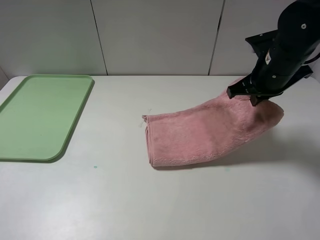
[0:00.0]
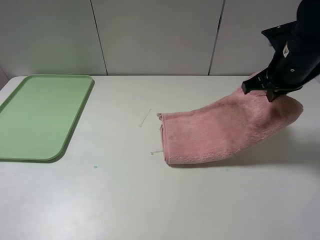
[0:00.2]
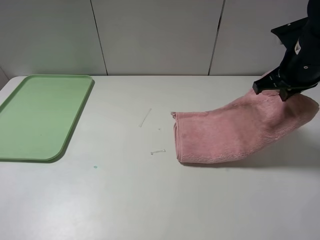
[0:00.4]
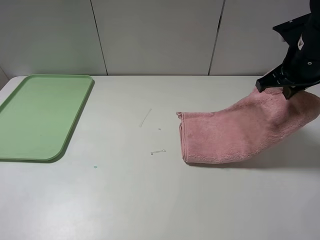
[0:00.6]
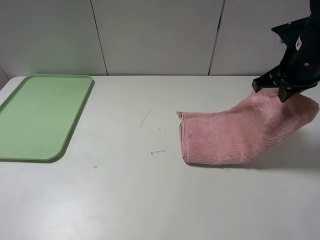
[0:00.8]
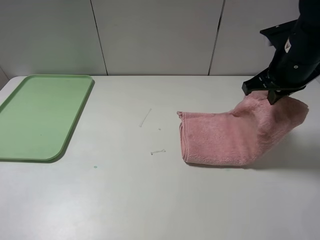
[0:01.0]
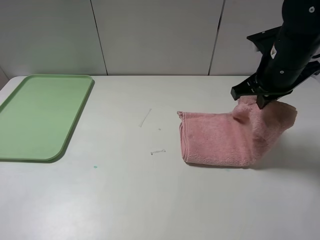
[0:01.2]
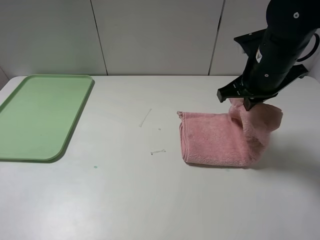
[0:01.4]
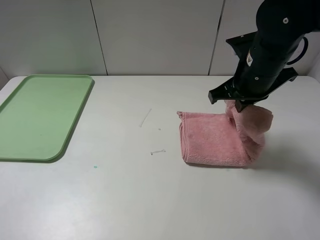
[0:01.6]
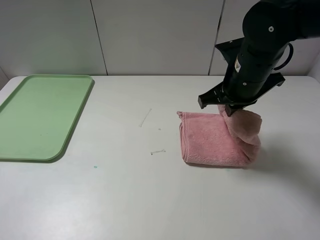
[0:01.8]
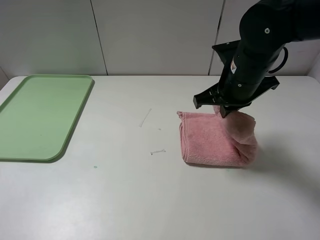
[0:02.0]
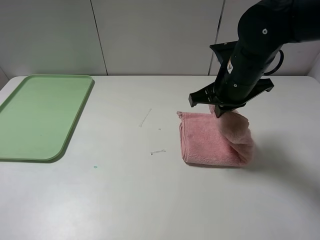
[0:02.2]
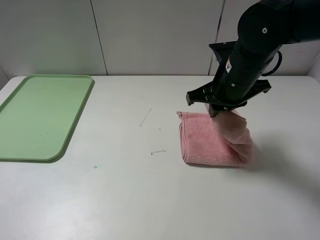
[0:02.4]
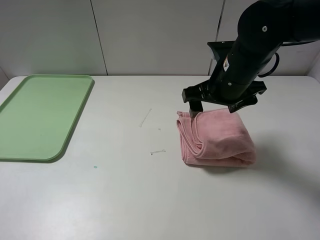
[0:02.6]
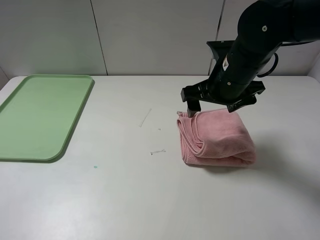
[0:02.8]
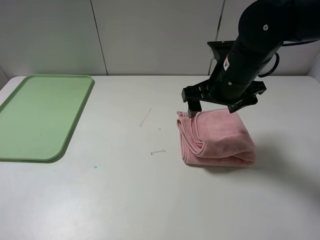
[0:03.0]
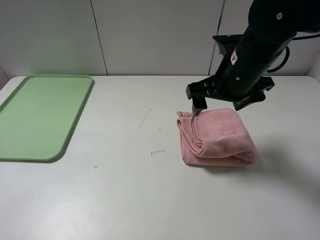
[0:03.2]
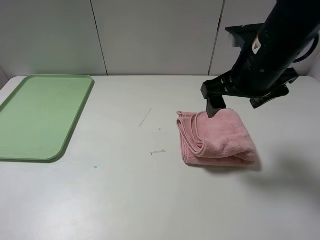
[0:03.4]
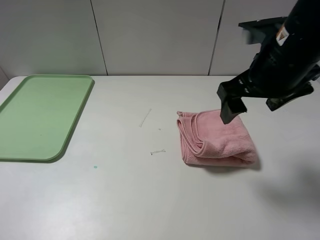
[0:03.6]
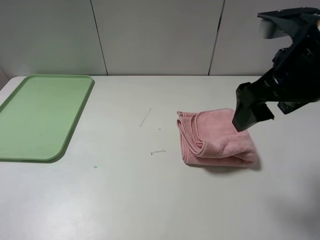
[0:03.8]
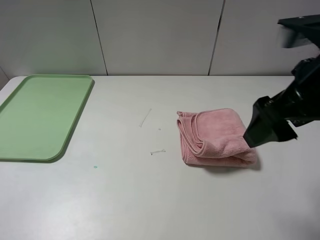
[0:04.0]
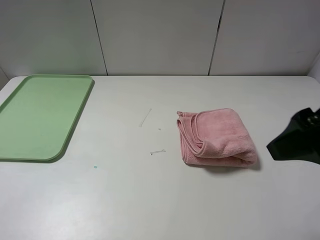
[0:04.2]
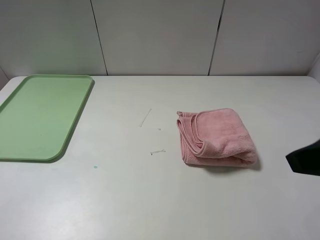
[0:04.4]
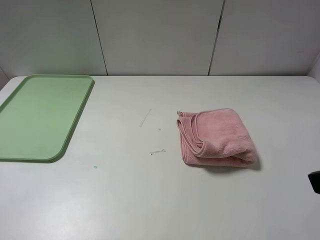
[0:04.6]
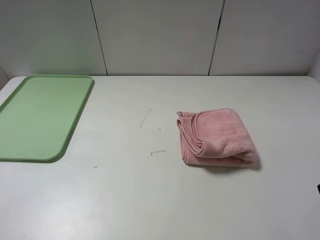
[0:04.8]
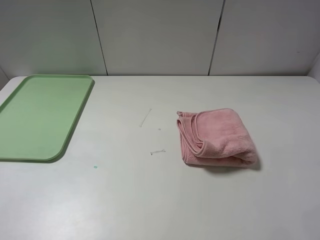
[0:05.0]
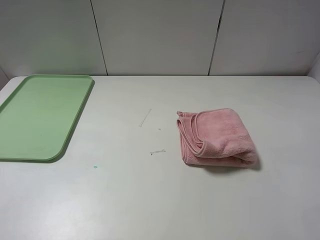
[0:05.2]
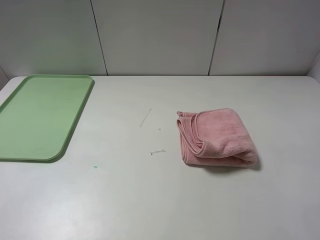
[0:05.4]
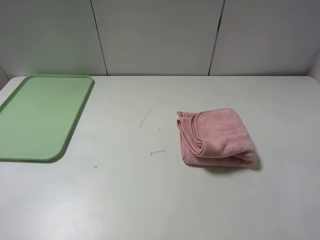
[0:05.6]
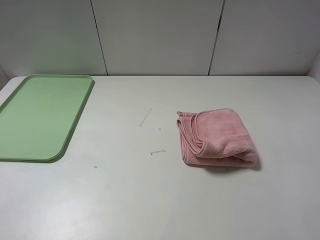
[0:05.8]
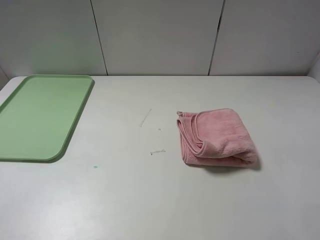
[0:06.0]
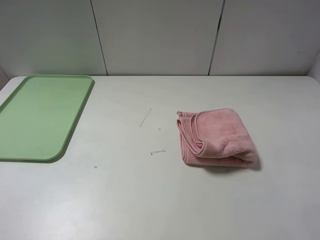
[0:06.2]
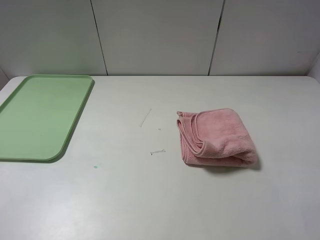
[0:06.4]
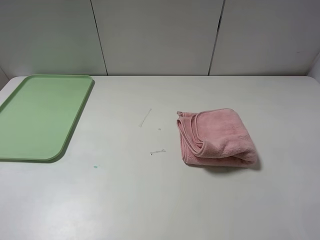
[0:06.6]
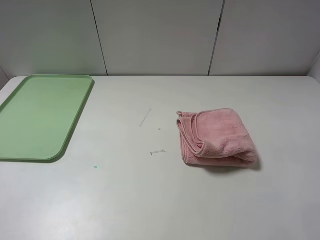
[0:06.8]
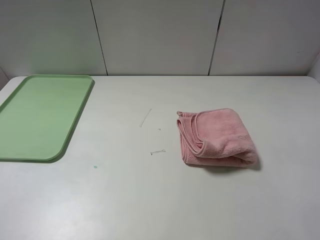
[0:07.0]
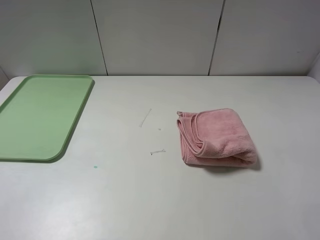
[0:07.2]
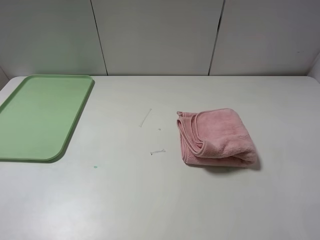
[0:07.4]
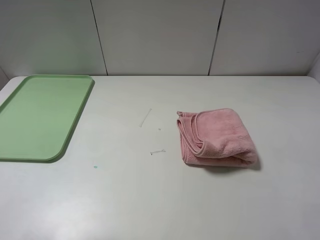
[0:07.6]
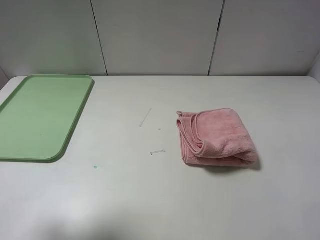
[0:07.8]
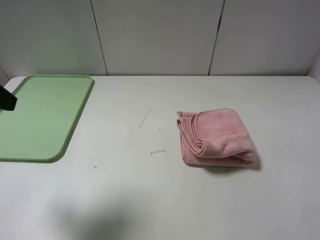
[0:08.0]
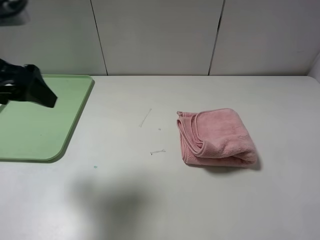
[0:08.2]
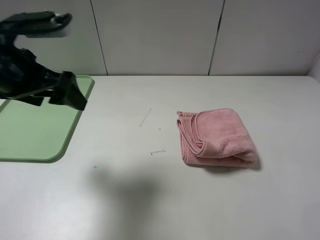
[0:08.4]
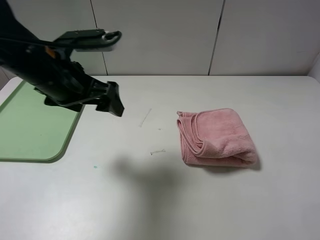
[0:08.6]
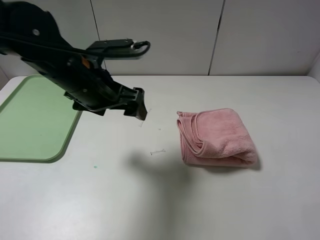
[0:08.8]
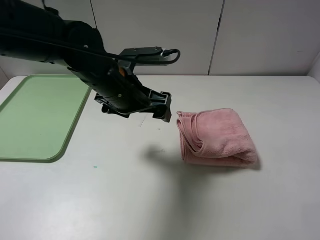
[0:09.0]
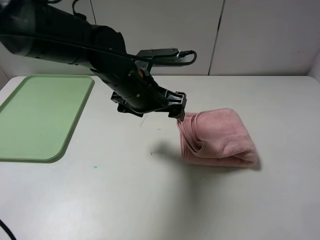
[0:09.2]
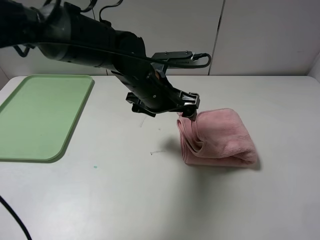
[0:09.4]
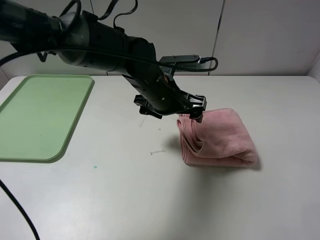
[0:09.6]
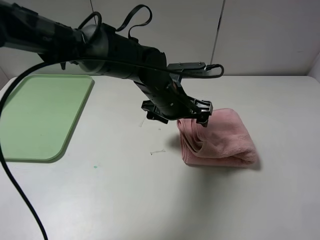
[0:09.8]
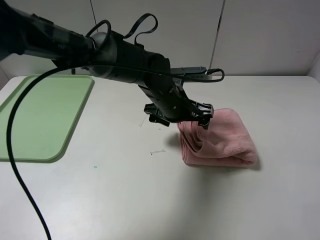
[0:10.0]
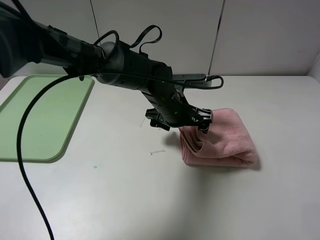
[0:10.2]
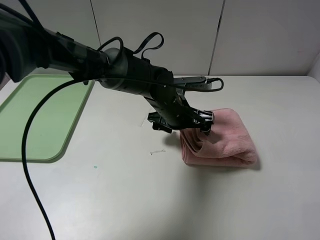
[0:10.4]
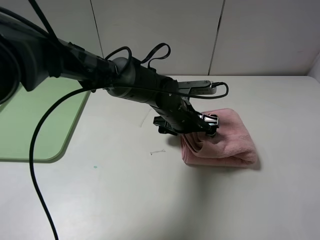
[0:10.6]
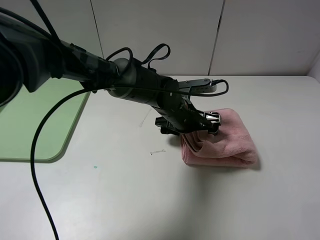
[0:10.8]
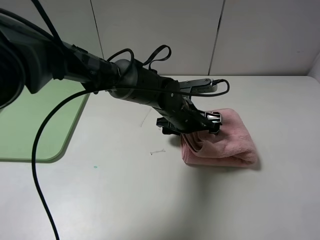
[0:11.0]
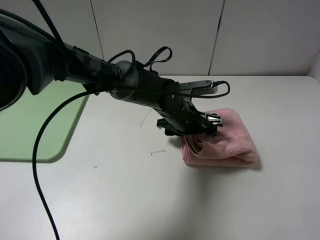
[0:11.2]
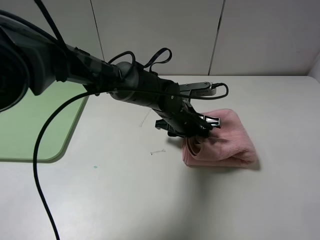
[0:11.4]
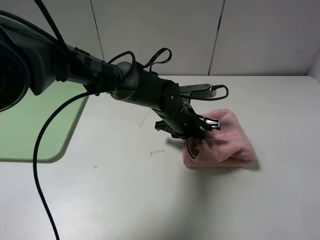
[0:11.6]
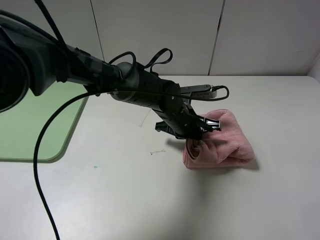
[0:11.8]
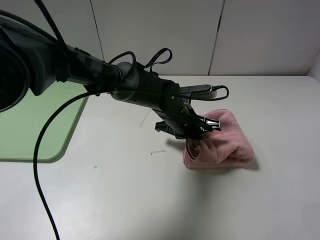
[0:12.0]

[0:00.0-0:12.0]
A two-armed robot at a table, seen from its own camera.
Step, 0:00.0 to 0:02.8: Fold the pink towel from right to left with right gripper.
0:00.0 to 0:01.6: The right gripper moves to the left, roughly 5 cm.
0:01.6 to 0:03.0: The right gripper opens its fingers.
0:03.0 to 0:04.4: The right gripper shifts about 25 cm backward, to the right and upward.
0:04.4 to 0:06.0: The right gripper shifts about 10 cm backward and to the right.
0:07.6 to 0:09.0: The left gripper heads to the right, forward and downward, covering about 35 cm.
0:09.0 to 0:10.4: The left gripper heads to the right and downward, covering about 15 cm.
0:10.4 to 0:12.0: The left gripper closes its fingers.

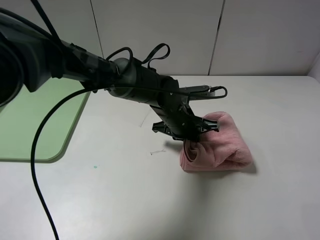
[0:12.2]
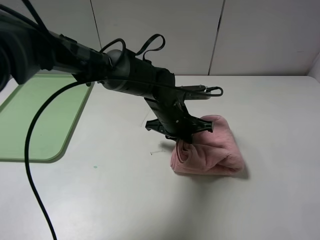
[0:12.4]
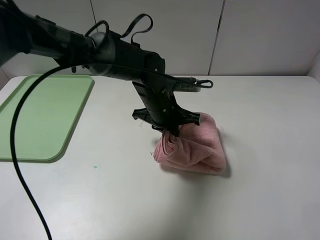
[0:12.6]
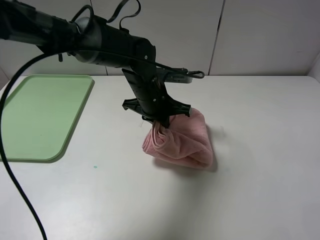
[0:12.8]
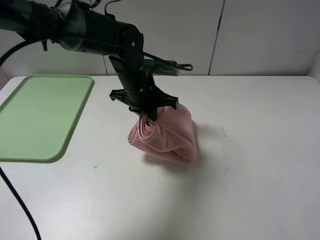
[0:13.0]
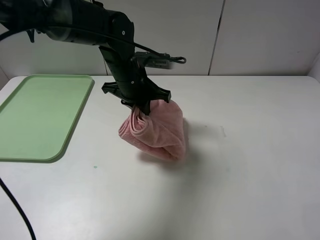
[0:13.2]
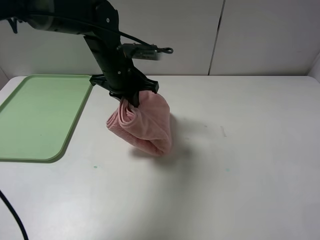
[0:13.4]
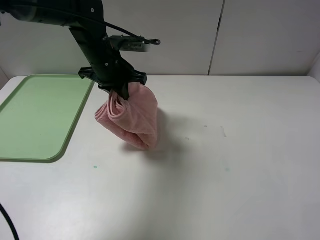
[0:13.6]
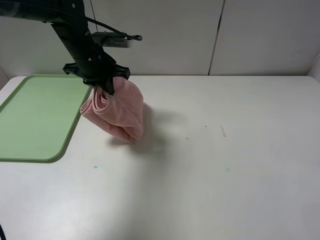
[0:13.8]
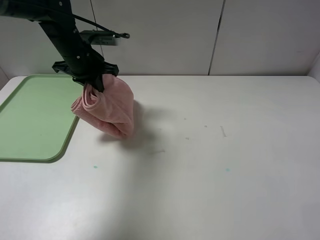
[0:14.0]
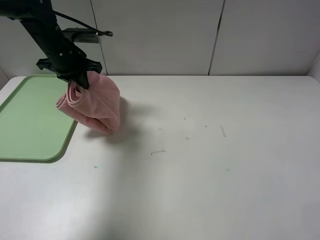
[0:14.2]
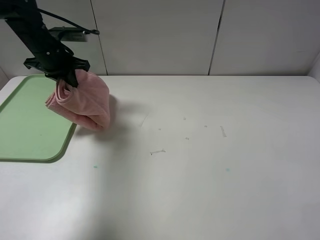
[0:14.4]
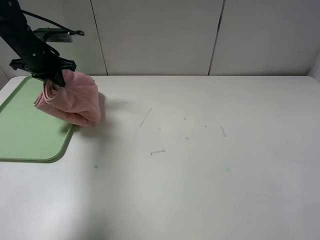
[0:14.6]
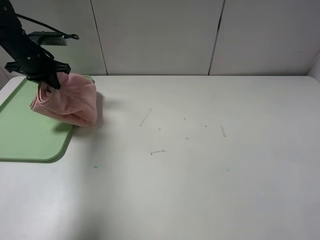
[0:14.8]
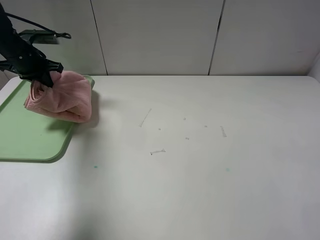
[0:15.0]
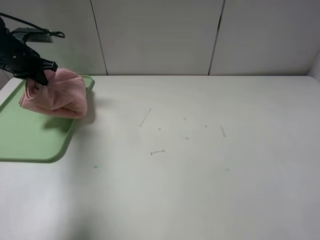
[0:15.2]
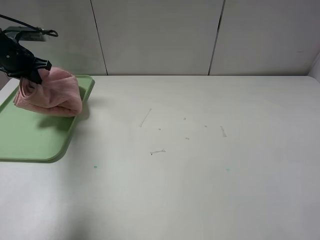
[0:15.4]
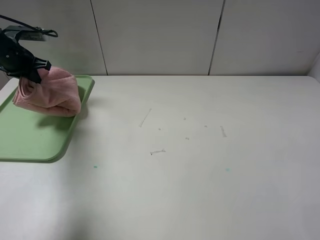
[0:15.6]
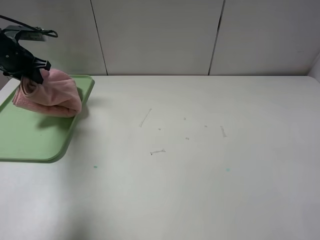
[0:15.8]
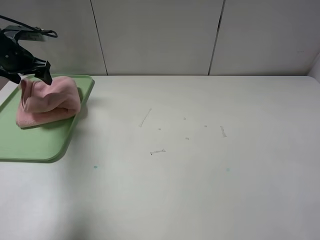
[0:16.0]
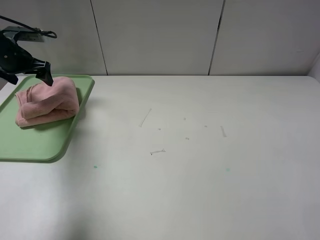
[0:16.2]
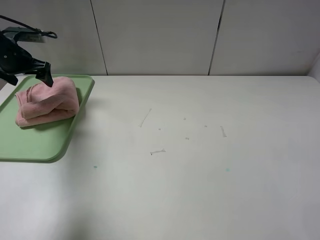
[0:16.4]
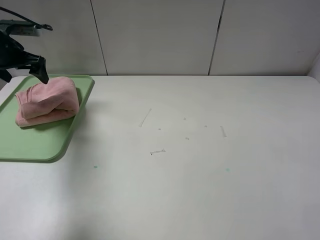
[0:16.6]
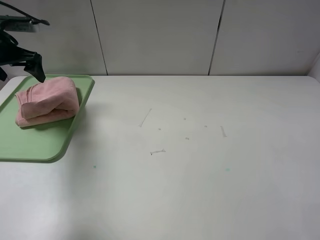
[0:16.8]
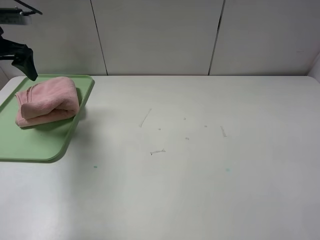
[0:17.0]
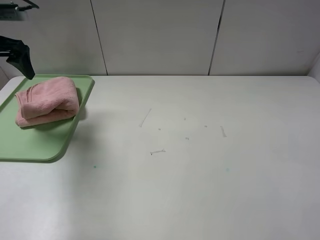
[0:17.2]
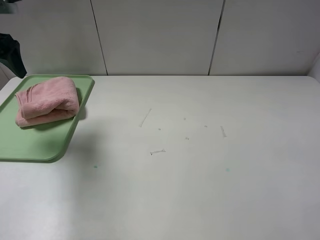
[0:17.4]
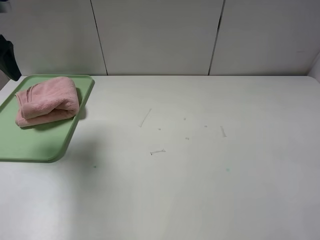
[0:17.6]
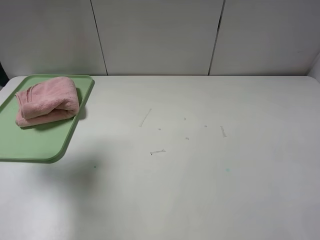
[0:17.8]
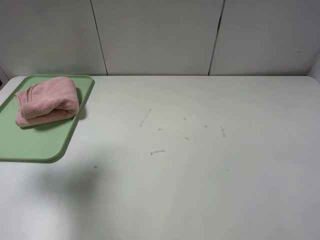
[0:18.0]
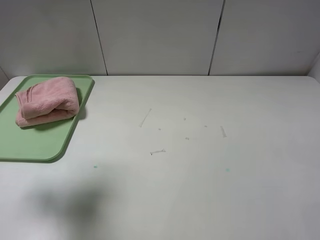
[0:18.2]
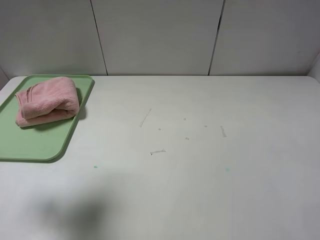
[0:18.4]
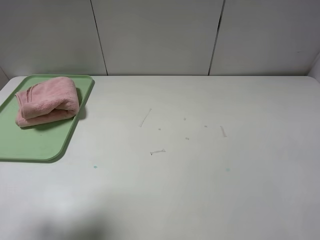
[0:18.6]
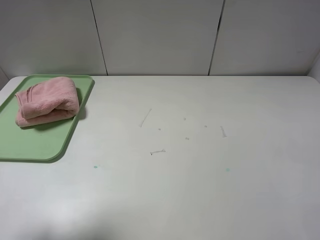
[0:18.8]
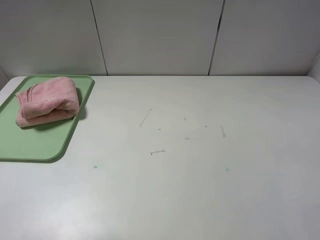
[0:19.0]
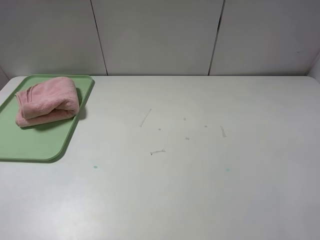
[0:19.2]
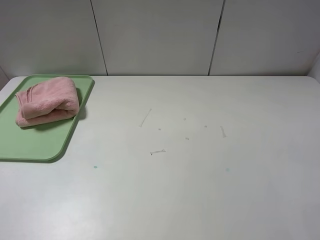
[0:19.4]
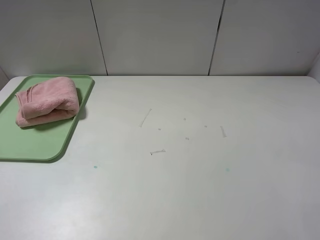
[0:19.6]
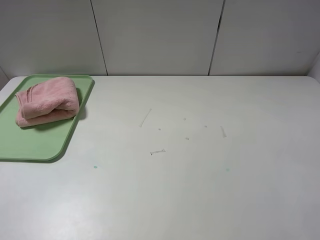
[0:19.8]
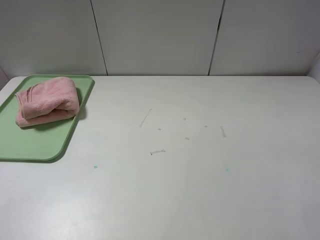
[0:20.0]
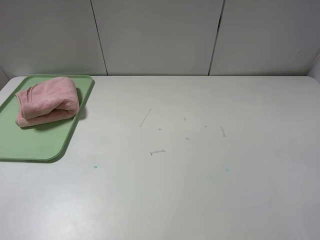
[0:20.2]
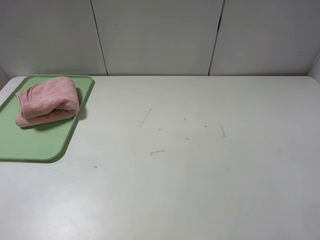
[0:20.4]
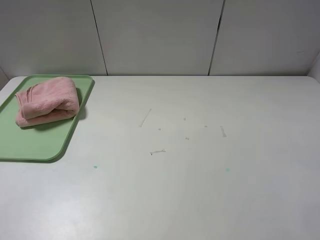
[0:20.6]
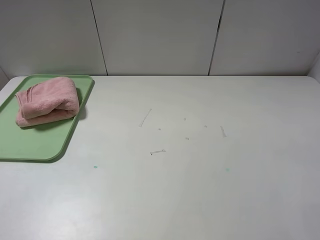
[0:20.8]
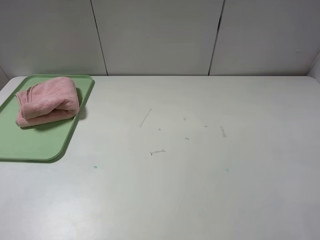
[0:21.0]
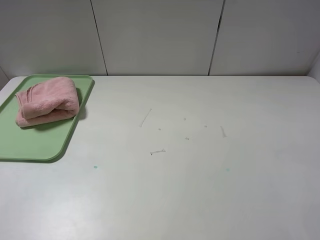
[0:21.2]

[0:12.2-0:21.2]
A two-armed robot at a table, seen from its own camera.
Step, 0:12.2 to 0:16.0: Place the folded pink towel on the tray with the left gripper.
0:12.2 to 0:13.8: The left gripper travels to the left, upward and forward by some 25 cm.
0:13.8 to 0:15.2: The left gripper shifts roughly 20 cm to the left.
0:15.2 to 0:16.6: The left gripper opens up.
0:16.6 to 0:18.2: The left gripper shifts some 25 cm backward and upward.
0:18.2 to 0:19.8: The left gripper goes about 20 cm backward.
0:19.8 to 0:21.2: The two grippers keep their place.
